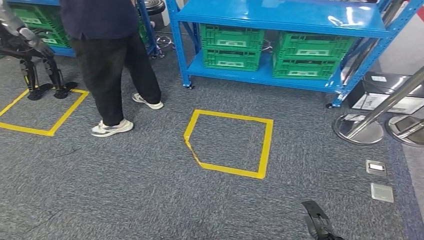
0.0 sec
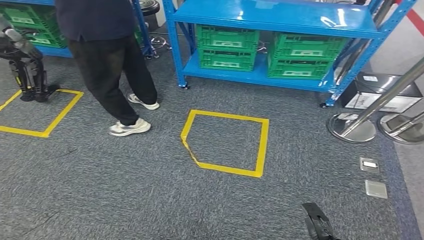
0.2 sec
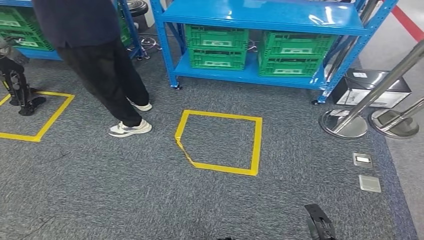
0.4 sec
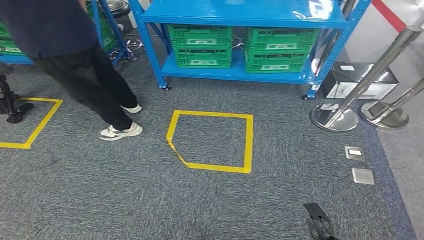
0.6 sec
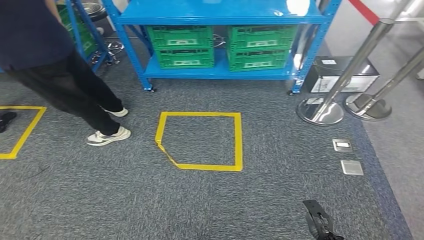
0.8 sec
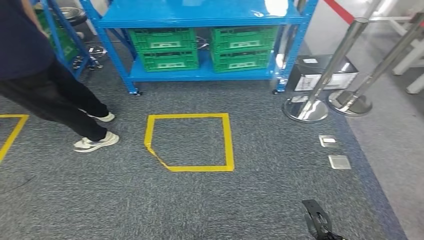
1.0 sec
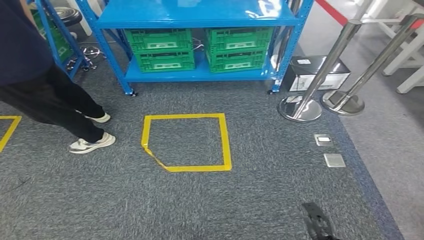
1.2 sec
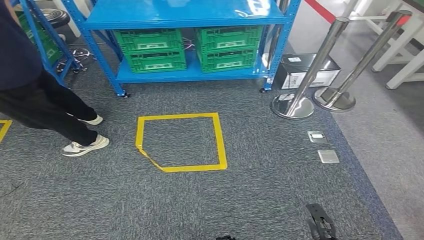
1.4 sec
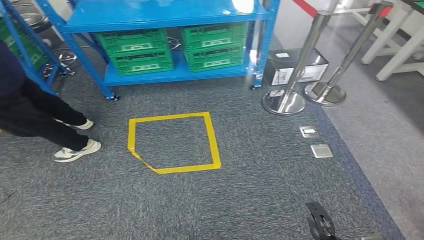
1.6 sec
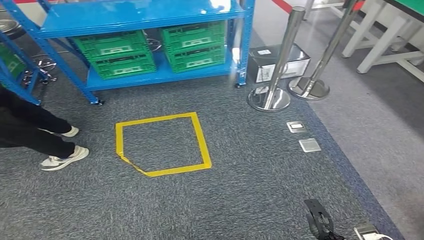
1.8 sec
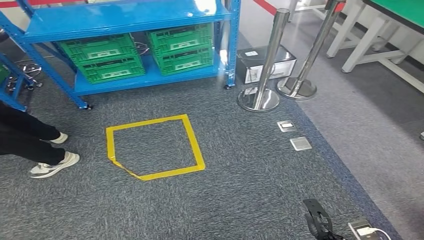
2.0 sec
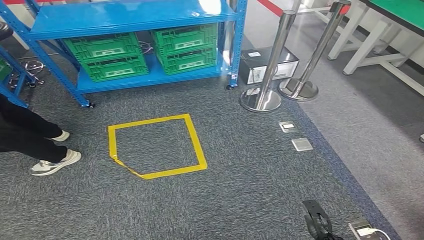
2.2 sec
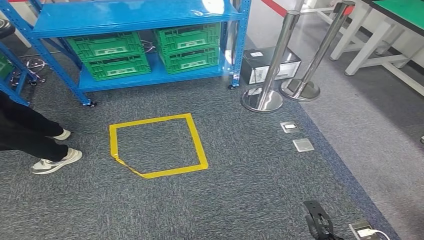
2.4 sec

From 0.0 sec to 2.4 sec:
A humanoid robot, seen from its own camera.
Step, from 0.0 sec to 2.4 sec: Return to the initial position at the workbench.
